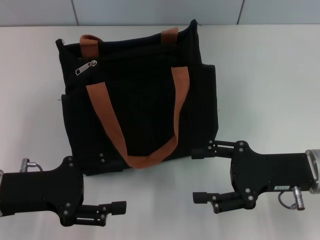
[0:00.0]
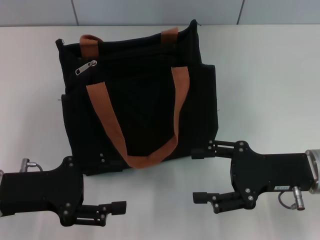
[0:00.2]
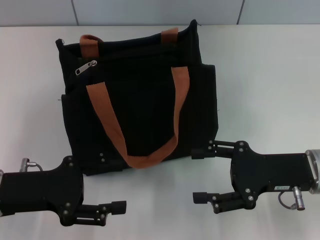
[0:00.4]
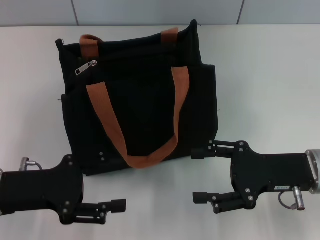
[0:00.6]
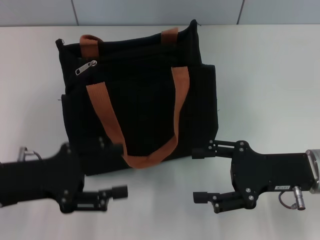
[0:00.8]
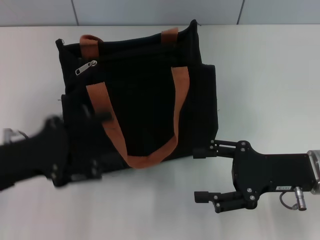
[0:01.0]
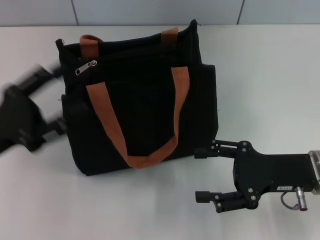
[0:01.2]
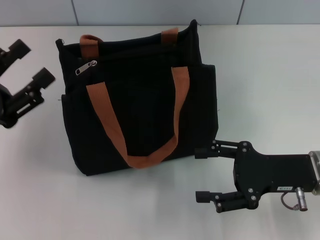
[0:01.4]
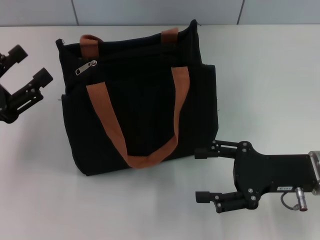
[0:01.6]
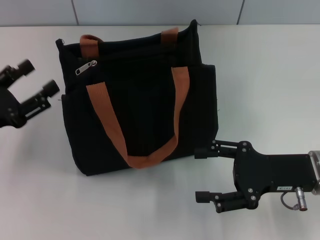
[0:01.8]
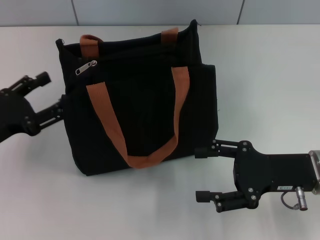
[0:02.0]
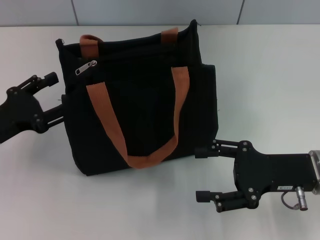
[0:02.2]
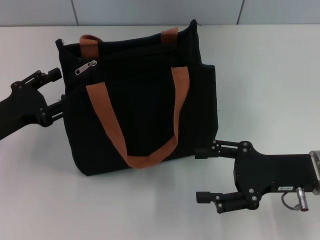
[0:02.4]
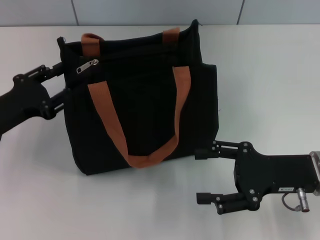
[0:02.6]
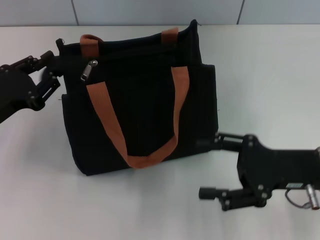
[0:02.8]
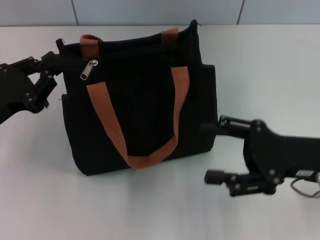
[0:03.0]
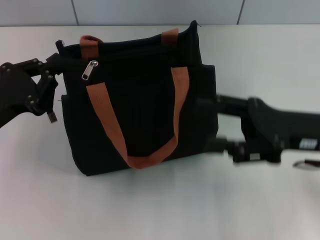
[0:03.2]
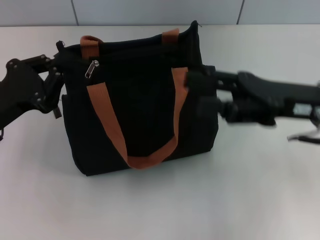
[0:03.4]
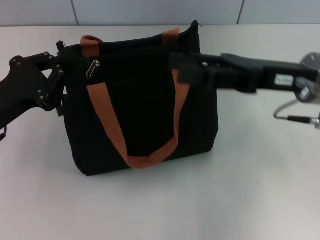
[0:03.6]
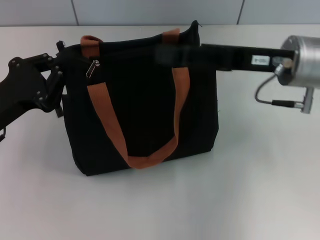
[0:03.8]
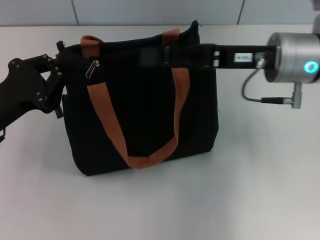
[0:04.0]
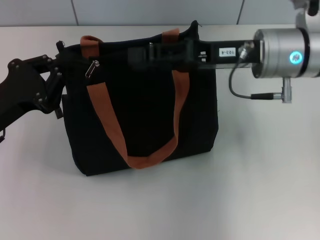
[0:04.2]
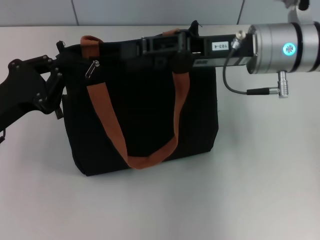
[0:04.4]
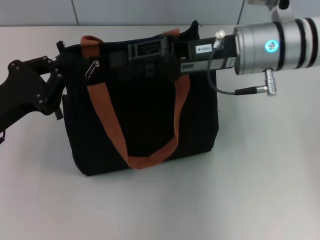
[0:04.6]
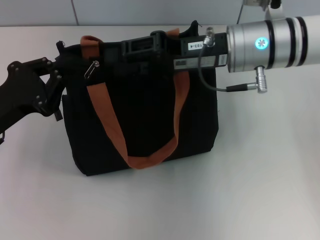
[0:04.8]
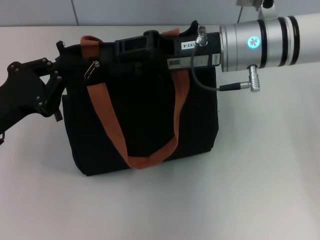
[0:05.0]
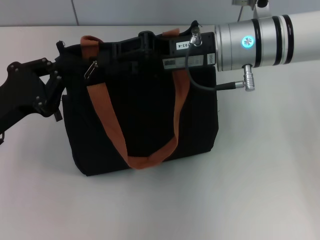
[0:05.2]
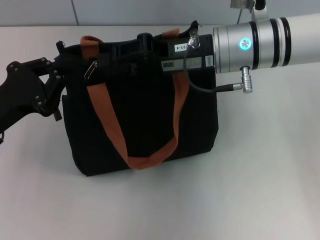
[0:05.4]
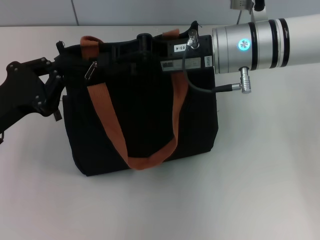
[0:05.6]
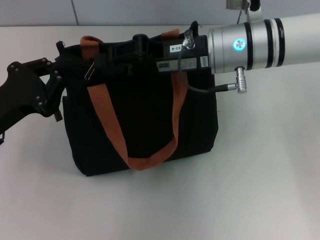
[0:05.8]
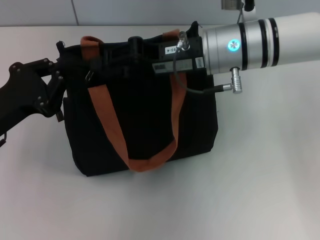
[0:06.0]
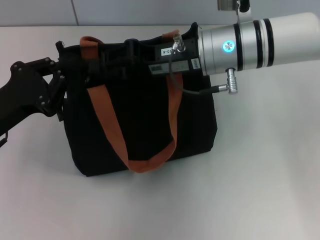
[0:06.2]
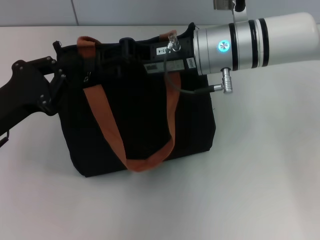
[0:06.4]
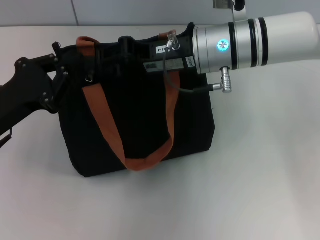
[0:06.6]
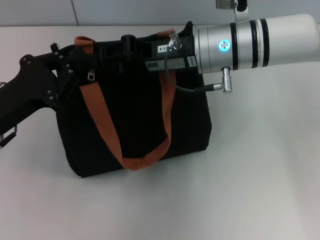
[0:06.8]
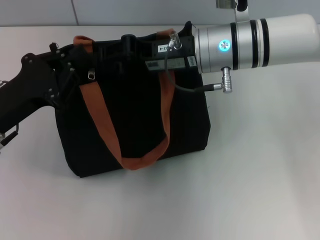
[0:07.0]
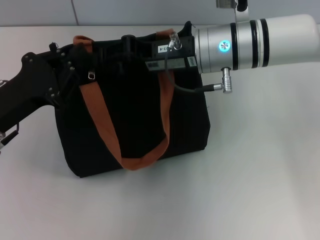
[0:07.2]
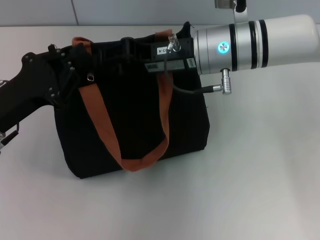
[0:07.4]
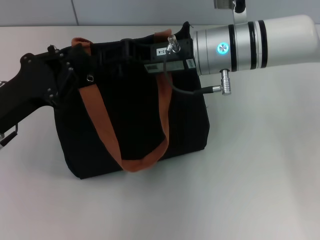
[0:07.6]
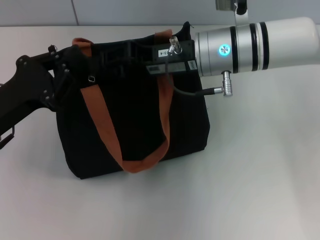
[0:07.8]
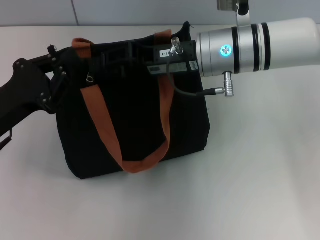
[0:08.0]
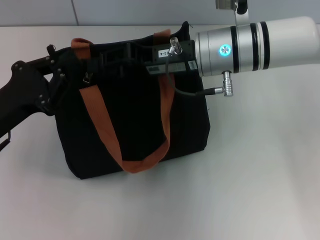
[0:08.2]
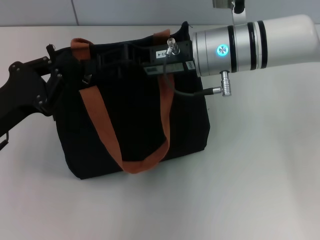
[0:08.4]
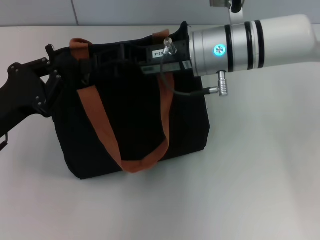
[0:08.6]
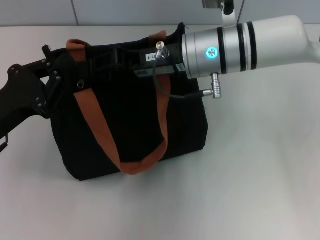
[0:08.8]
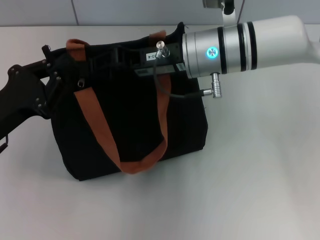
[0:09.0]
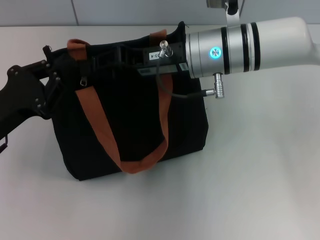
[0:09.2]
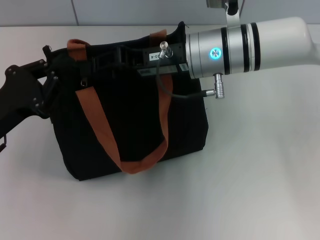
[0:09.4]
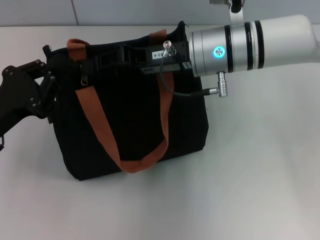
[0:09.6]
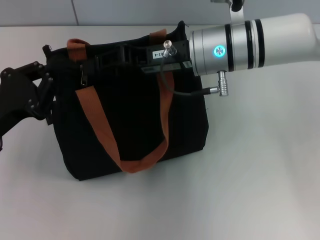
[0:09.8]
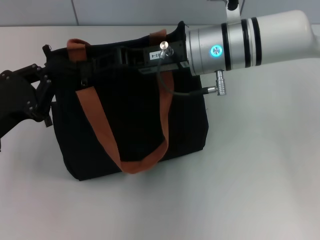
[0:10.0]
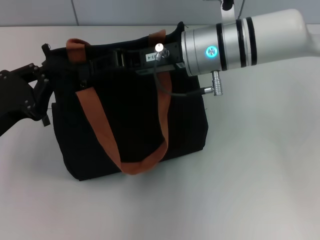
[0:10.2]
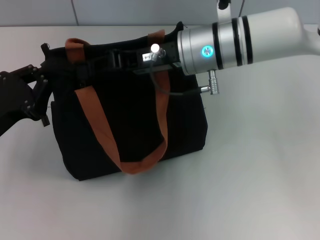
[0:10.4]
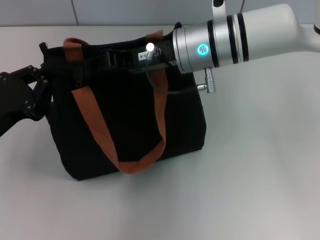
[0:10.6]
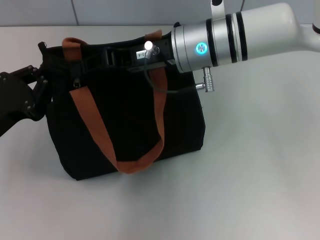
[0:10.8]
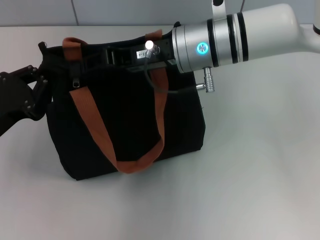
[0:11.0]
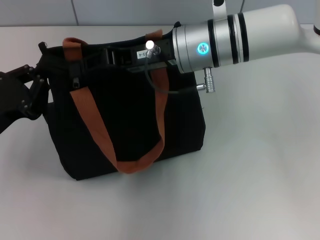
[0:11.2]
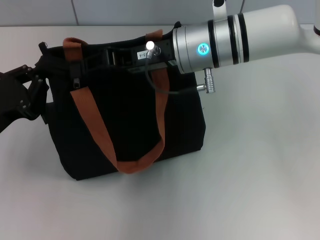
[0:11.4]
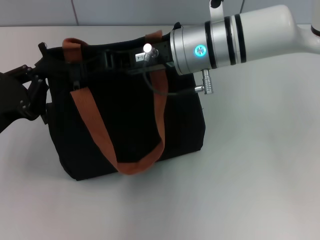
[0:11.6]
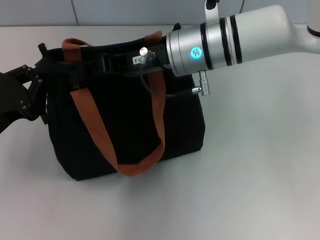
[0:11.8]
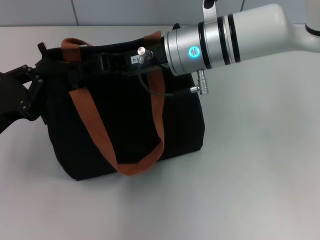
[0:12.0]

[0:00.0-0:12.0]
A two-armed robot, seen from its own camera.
0:00.0 to 0:01.6: The left gripper ends up roughly 5 cm from where it was.
0:01.6 to 0:03.0: The left gripper closes up.
0:03.0 to 0:04.4: The left gripper closes. The right gripper moves forward, to the left and upward, about 15 cm, and closes its fingers.
0:04.4 to 0:06.0: The right gripper heads to the left, covering roughly 5 cm.
0:06.0 to 0:12.0: The grippers make only small movements.

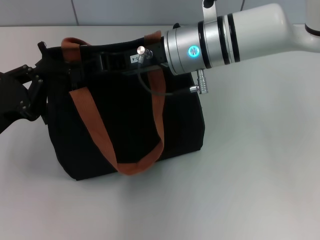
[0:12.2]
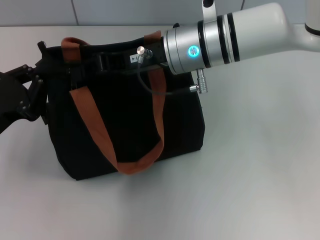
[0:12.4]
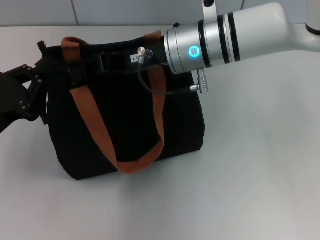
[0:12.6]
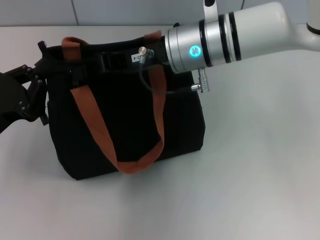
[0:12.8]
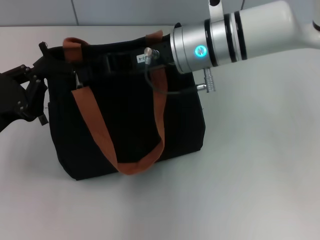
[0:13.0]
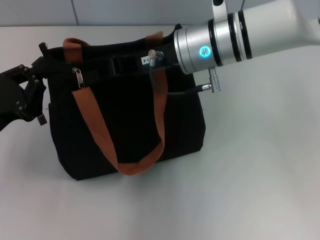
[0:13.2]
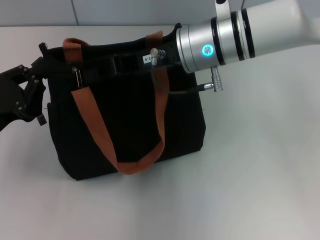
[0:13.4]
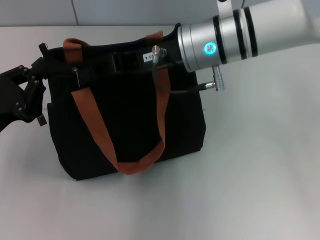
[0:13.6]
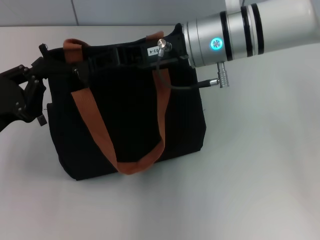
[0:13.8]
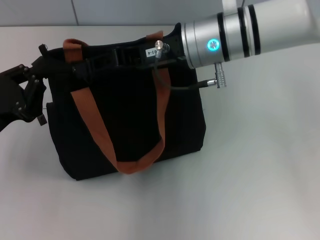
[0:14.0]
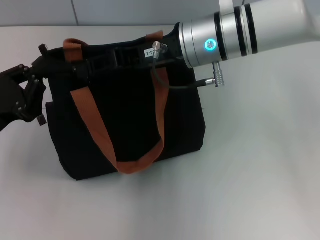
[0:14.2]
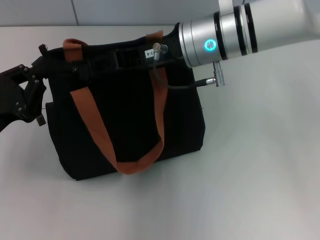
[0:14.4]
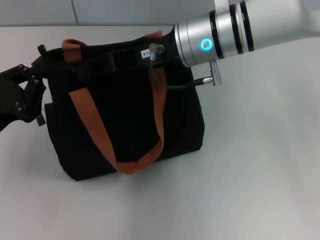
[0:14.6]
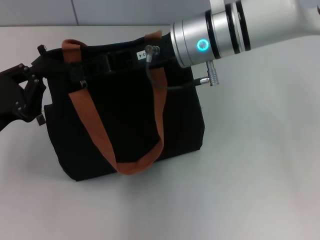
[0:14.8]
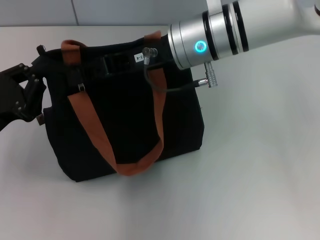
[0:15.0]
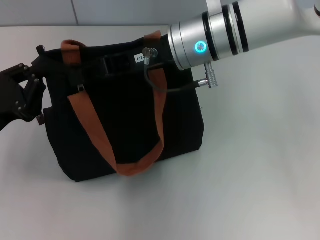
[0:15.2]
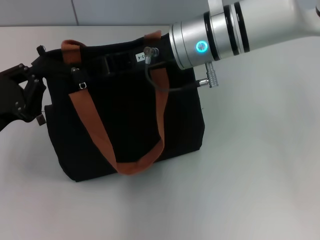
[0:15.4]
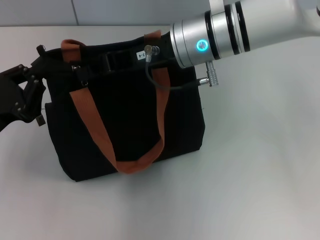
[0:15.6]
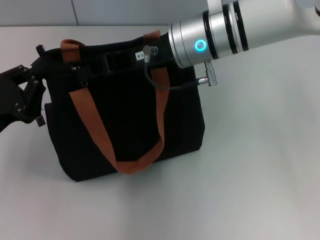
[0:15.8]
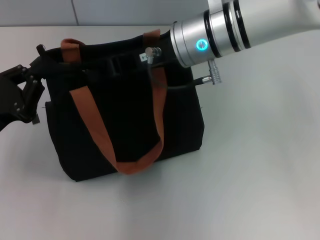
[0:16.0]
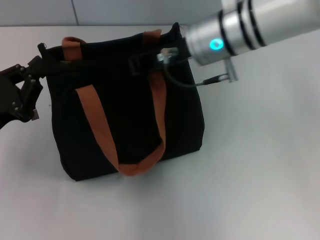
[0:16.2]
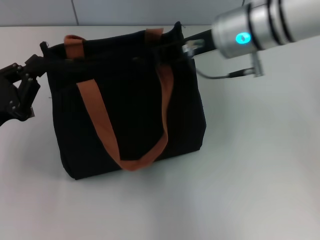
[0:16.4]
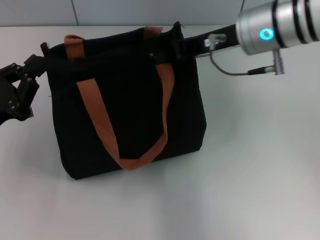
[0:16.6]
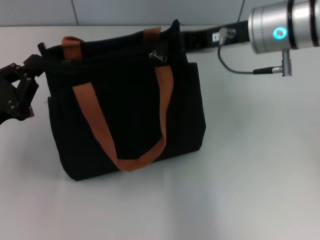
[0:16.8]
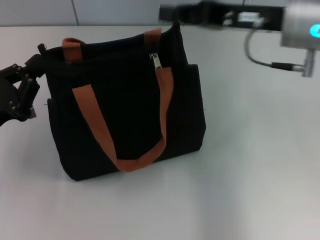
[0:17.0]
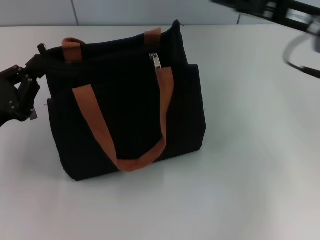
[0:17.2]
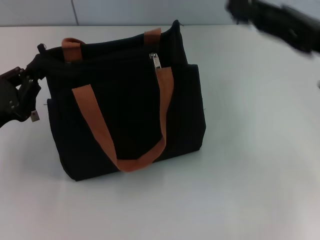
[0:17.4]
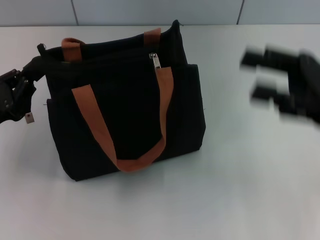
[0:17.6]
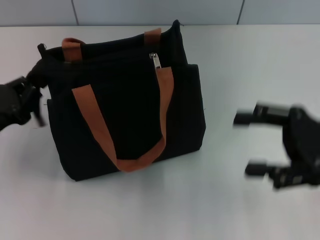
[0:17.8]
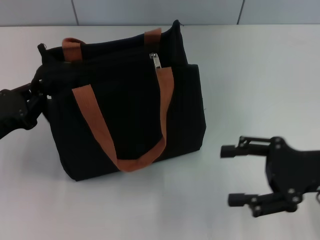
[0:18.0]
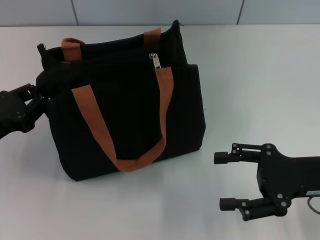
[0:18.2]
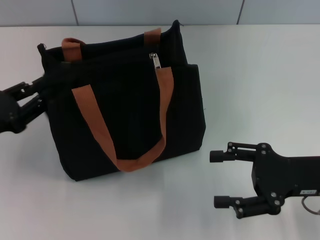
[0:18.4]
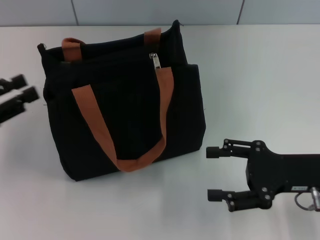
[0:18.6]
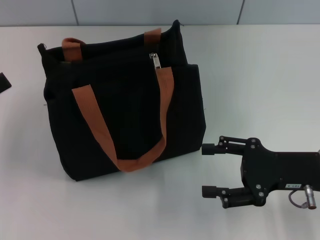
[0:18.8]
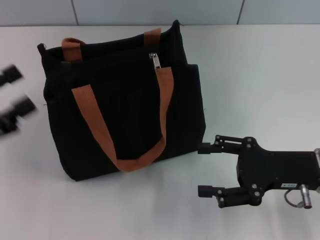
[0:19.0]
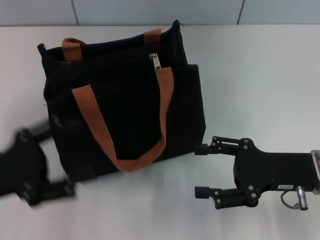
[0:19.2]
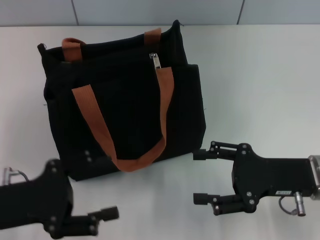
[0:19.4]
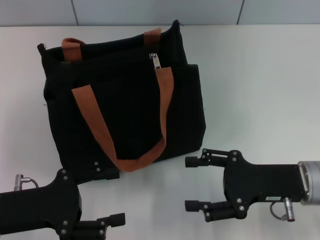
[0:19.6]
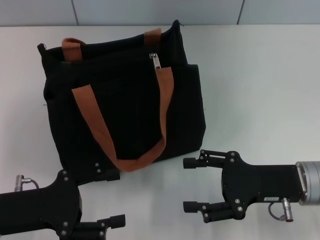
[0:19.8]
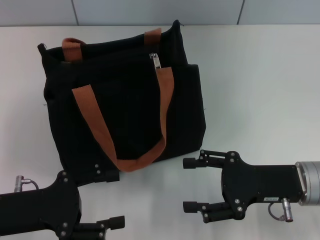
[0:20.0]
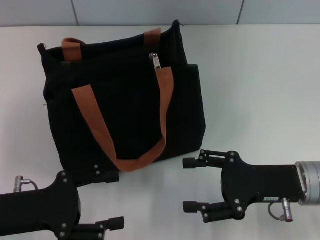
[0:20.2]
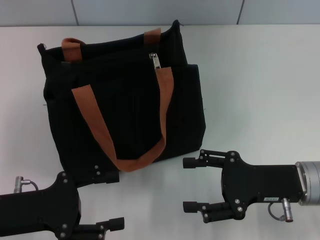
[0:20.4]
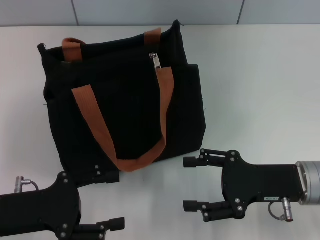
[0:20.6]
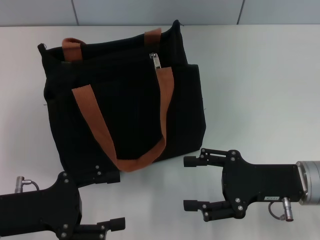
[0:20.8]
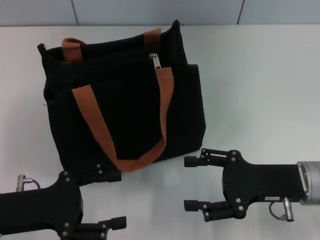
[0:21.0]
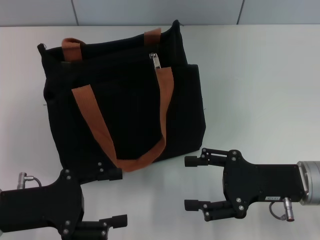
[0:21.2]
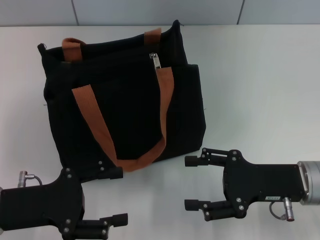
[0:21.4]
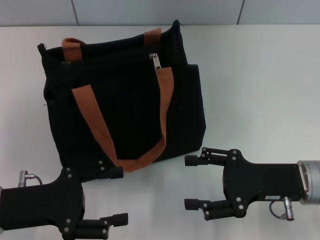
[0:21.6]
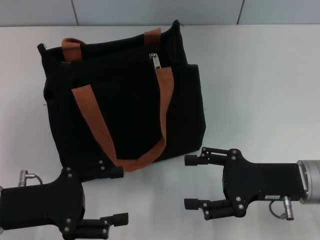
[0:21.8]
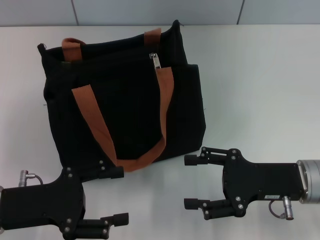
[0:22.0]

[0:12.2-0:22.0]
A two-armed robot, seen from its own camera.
Step, 0:12.2 to 0:16.8: Pull up the zipper with your right hand.
Step, 0:17.0 to 0:18.6: Grab the zipper with your left hand.
0:12.2 to 0:15.0: The grippers make only small movements.
0:15.0 to 0:16.4: The right gripper goes roughly 5 cm to the right, and closes up.
0:16.4 to 0:17.8: The right gripper moves to the right, backward and downward, some 20 cm, and opens its fingers.
0:17.8 to 0:19.2: The left gripper opens, while the right gripper moves downward, some 5 cm.
0:19.2 to 0:20.6: The grippers stay close to where they were, moving slightly.
0:20.6 to 0:22.0: Both grippers stay put.

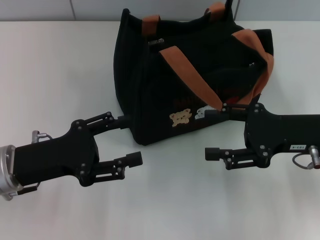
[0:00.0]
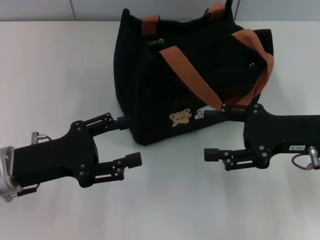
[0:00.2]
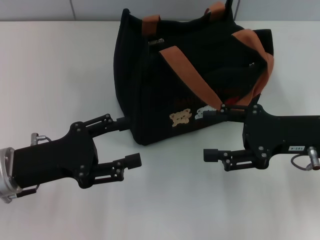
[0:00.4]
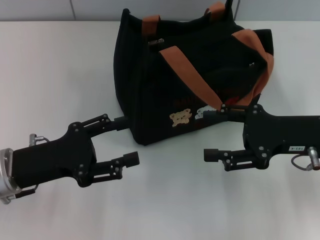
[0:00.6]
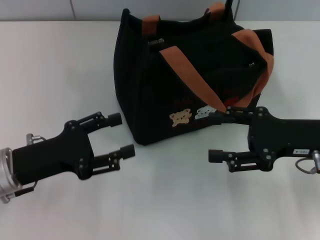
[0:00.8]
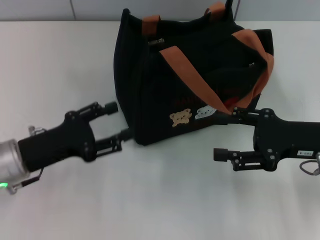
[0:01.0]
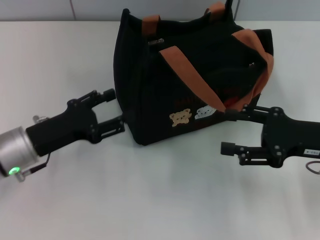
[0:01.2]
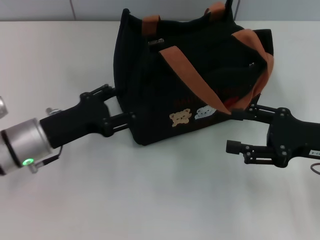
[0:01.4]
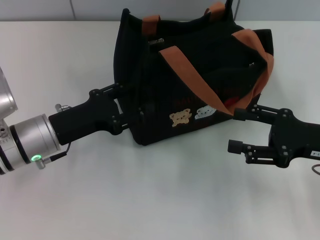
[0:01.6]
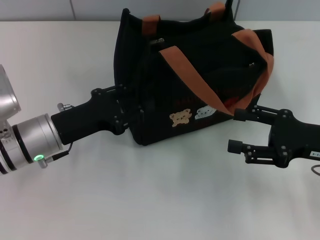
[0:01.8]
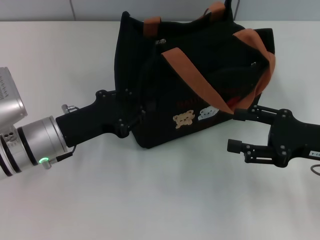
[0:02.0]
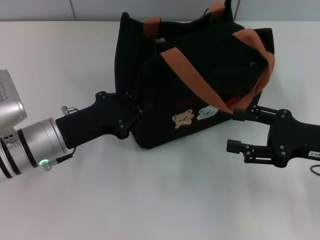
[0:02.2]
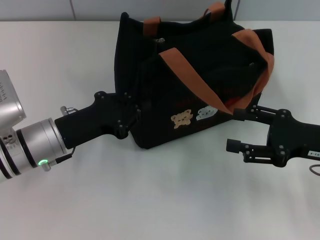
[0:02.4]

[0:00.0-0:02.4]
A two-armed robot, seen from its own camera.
0:01.2 to 0:02.4: The left gripper closes.
